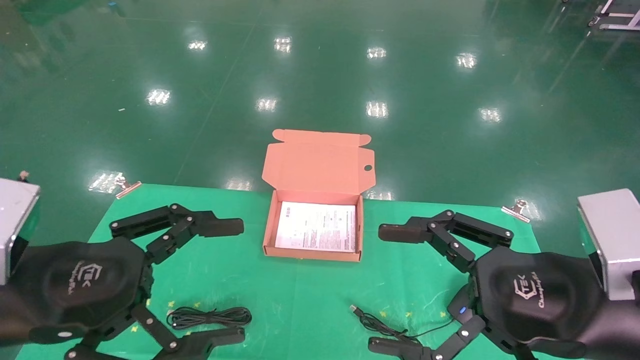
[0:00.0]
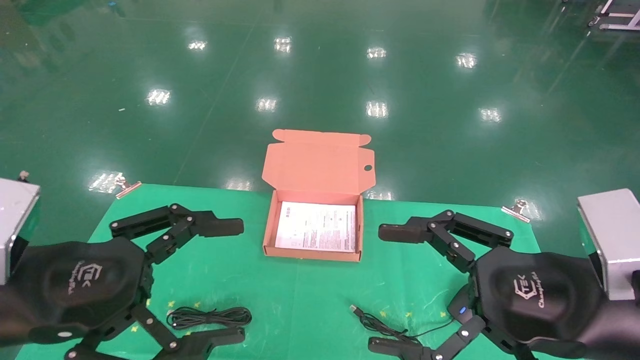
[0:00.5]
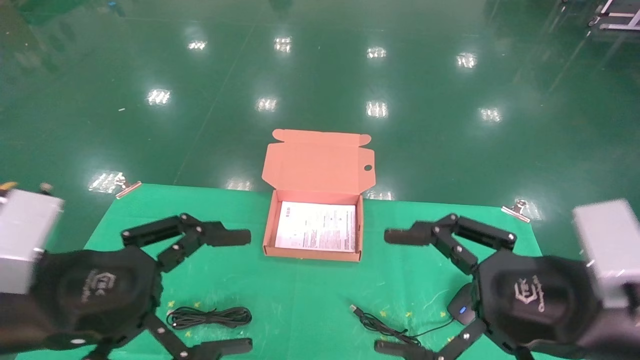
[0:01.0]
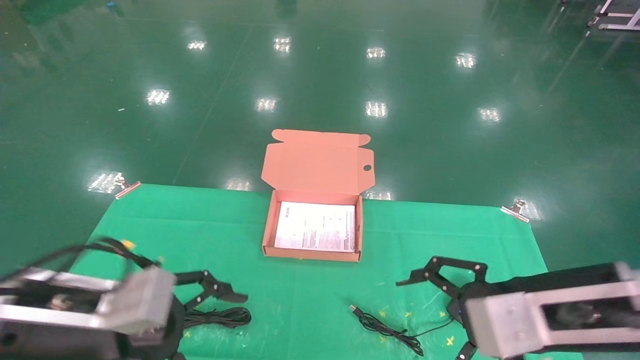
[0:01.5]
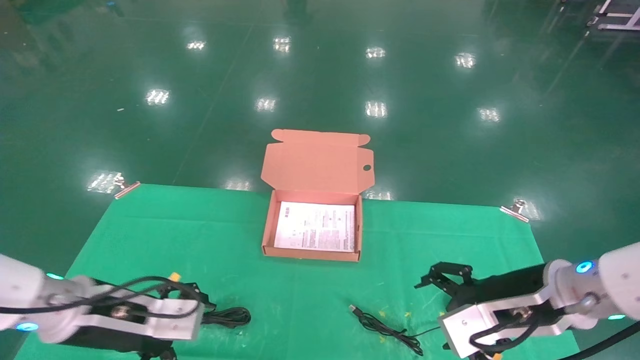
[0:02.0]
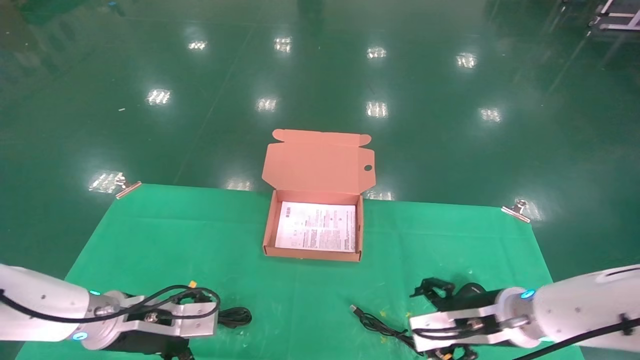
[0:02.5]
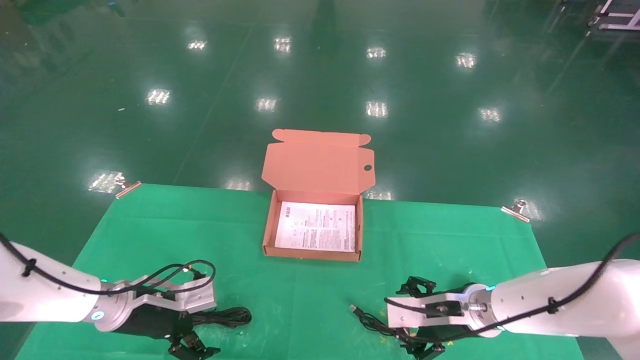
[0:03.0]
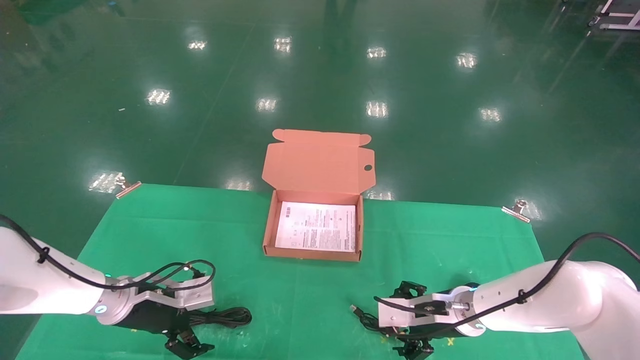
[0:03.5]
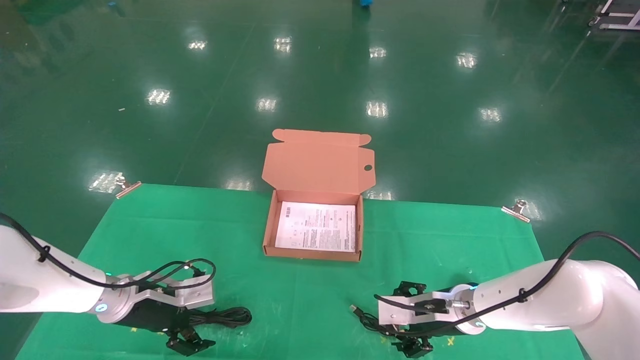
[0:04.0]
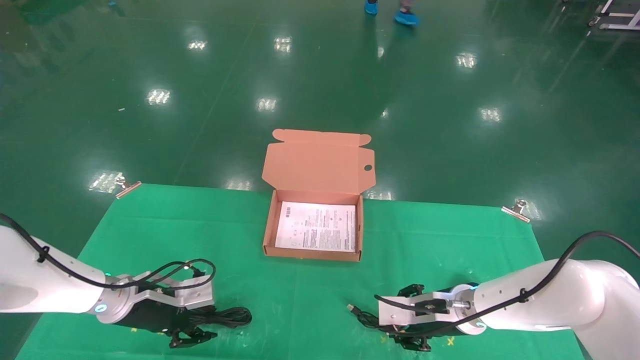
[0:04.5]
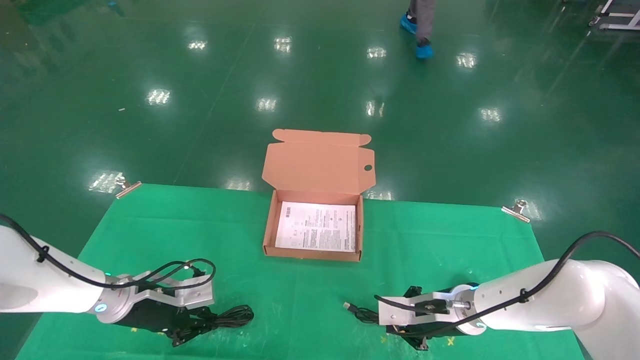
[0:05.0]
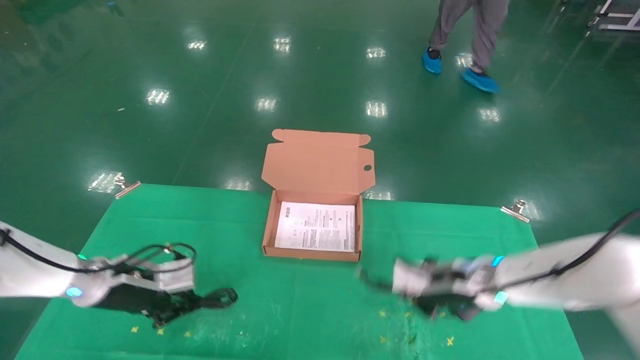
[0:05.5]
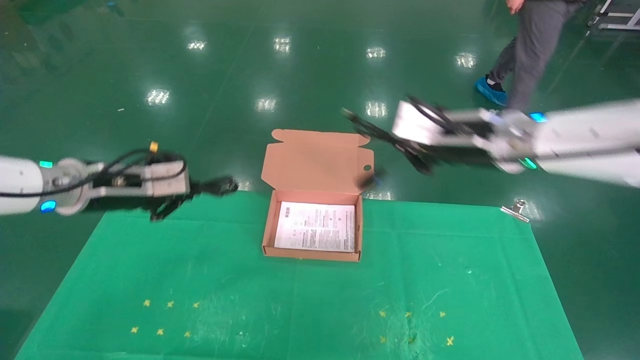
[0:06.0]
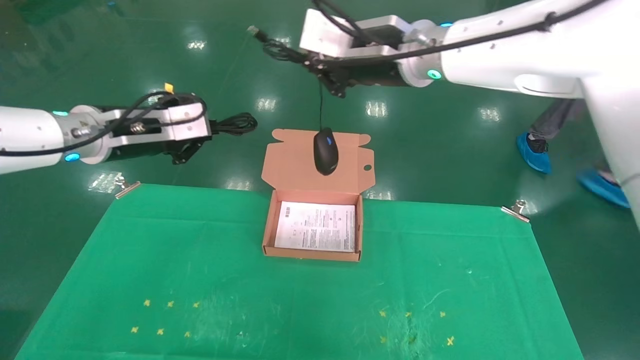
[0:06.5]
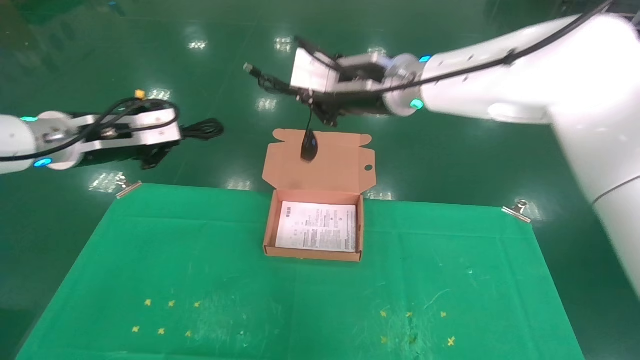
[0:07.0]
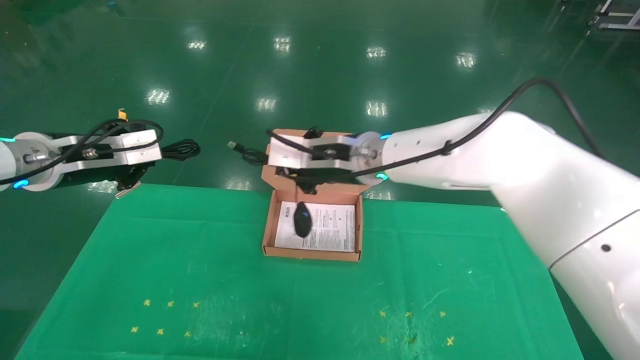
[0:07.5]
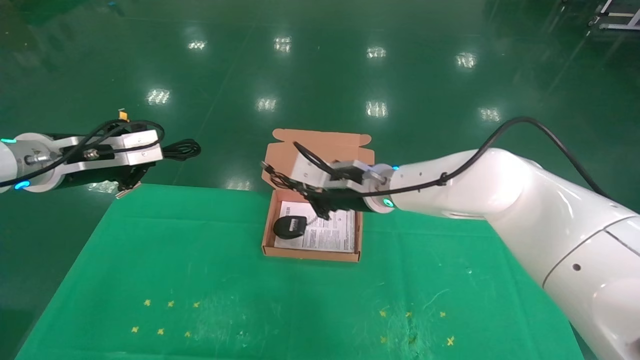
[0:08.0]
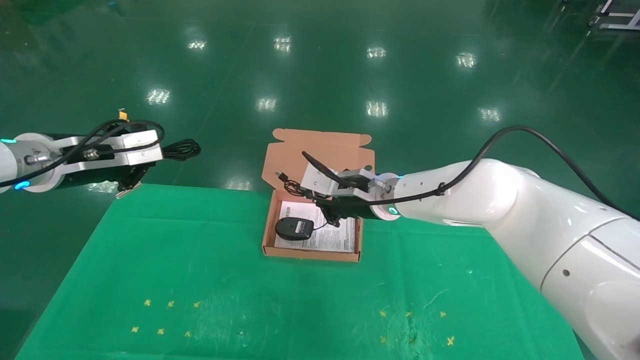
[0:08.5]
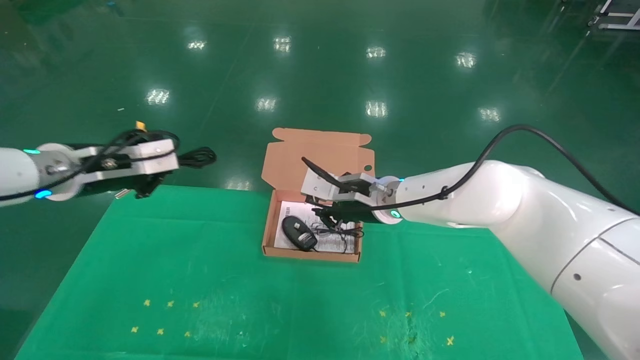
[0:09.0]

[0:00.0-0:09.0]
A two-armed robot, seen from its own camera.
Task of the whole recording: grasp data cable left put into box grasp mouse right put into box.
Step, 0:01.0 to 0:05.0: Grab and pick up both the mouse and power cord from the accessory packaging area at the same time.
0:00.0 to 0:02.0: The grippers both shift forward and downward by some 15 cm.
0:02.0 to 0:04.5: The left gripper is displaced forward and downward by approximately 15 cm, and closes its fingers, while the right gripper moves downward and forward, about 15 cm, and closes.
0:04.5 to 0:07.0: The right gripper moves upward and to the left, about 35 cm, and closes its fingers. Meanwhile the left gripper moves upward, about 25 cm, and closes its fingers.
0:07.0 to 0:09.0: The right gripper is displaced downward by about 15 cm.

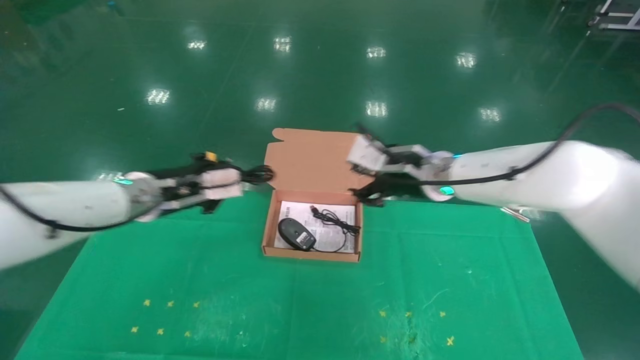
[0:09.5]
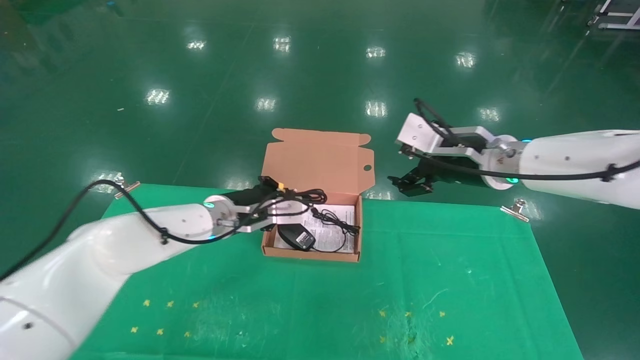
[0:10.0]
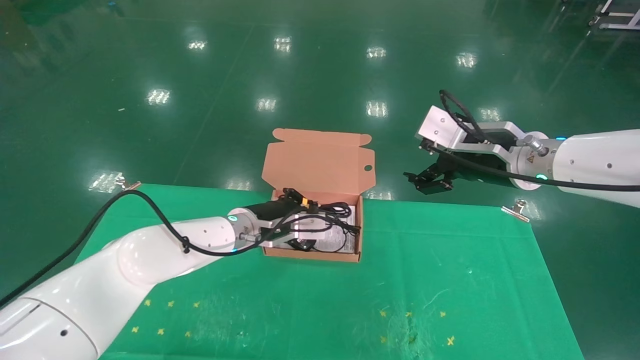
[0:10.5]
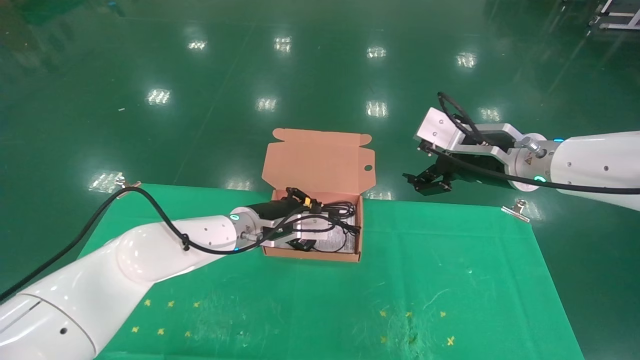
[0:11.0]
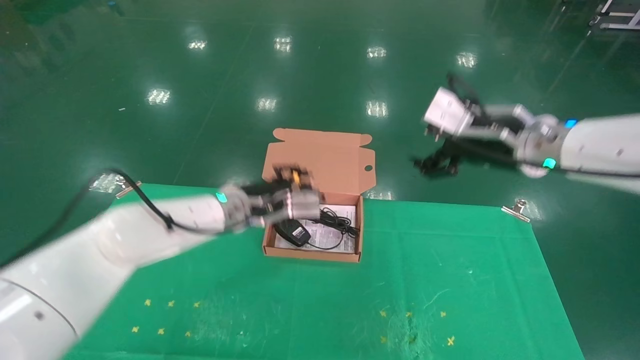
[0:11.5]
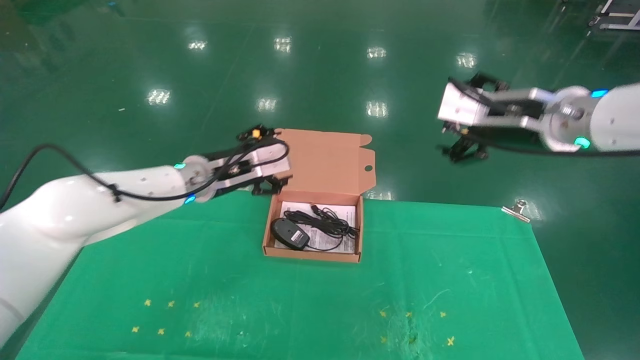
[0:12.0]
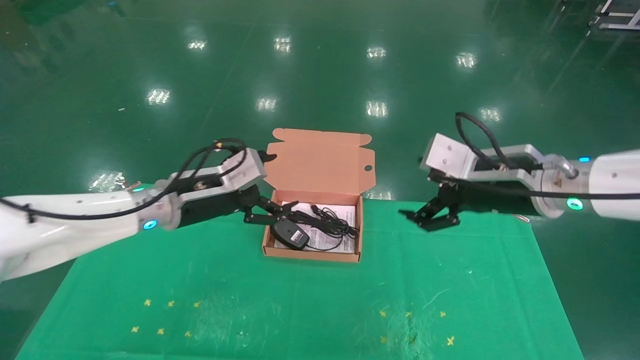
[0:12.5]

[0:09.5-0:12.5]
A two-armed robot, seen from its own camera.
Task of the whole recording: grasp data cable left put into box grasp mouse right put into box.
0:09.5 to 0:11.0: The right gripper goes some 10 cm to the right and backward, and opens up, while the left gripper goes some 15 cm to the right and downward.
0:11.0 to 0:12.5: The left gripper shifts approximately 15 cm to the left, upward and backward, and opens.

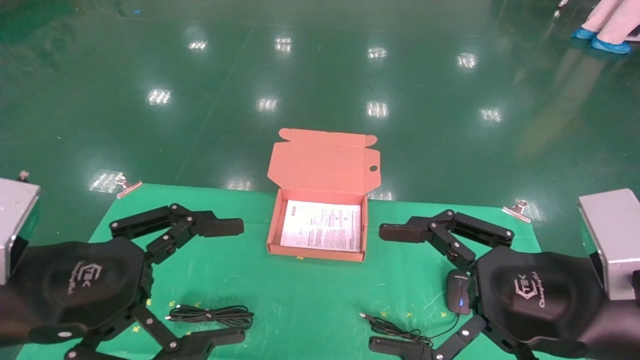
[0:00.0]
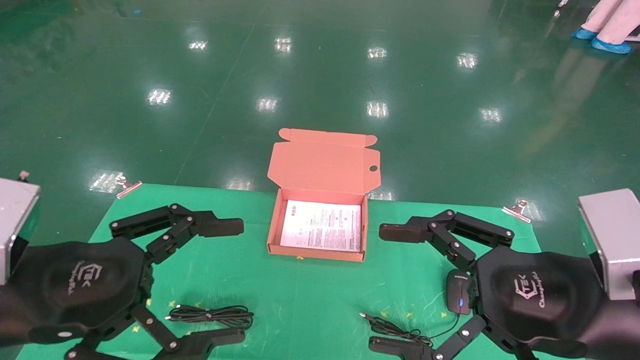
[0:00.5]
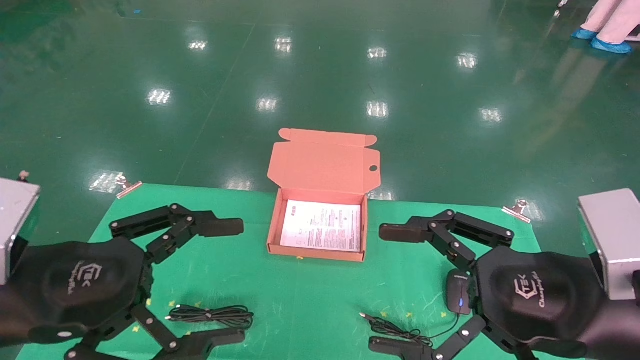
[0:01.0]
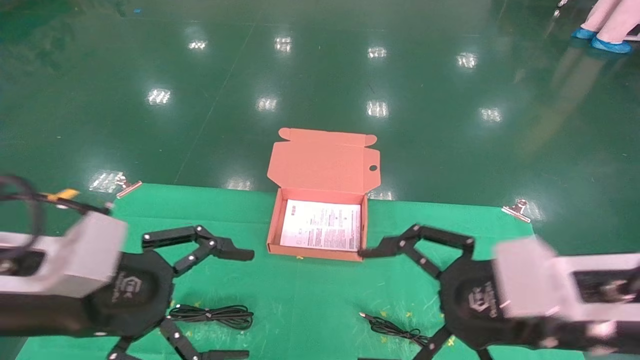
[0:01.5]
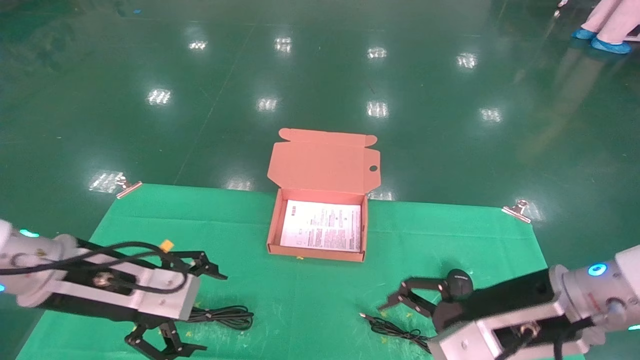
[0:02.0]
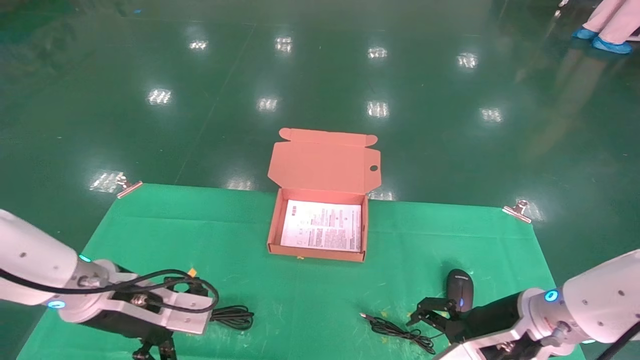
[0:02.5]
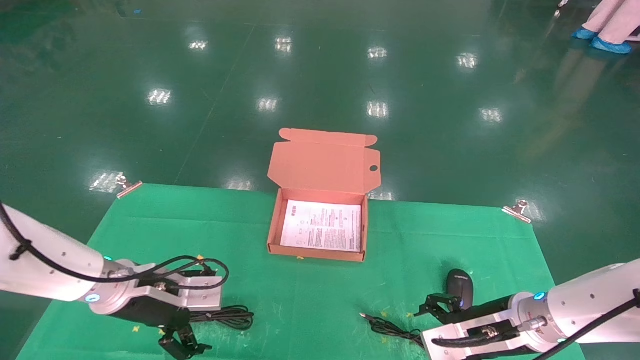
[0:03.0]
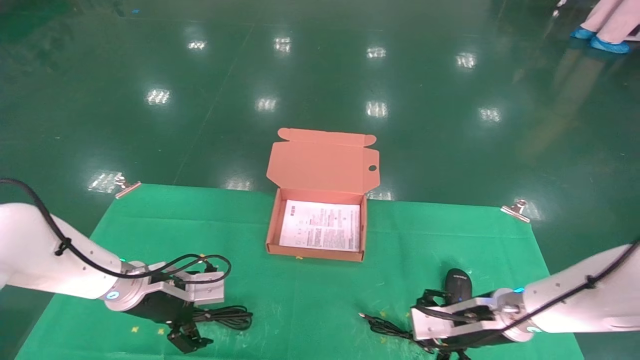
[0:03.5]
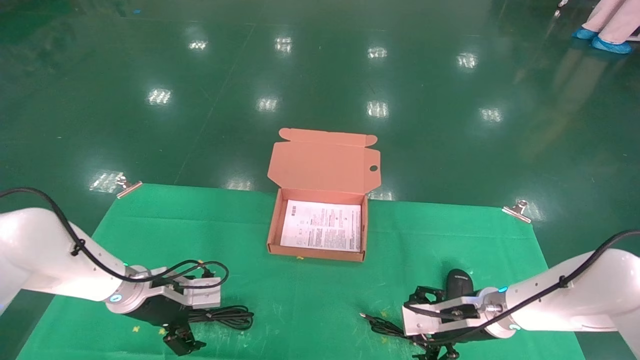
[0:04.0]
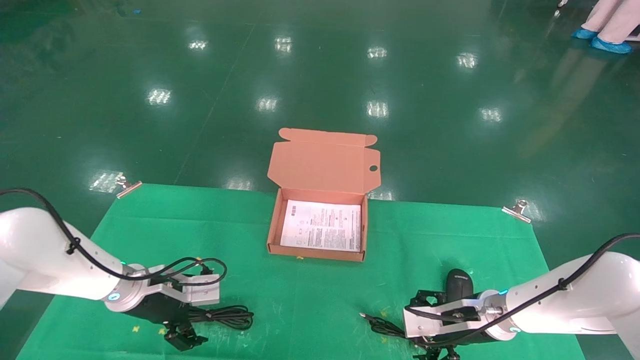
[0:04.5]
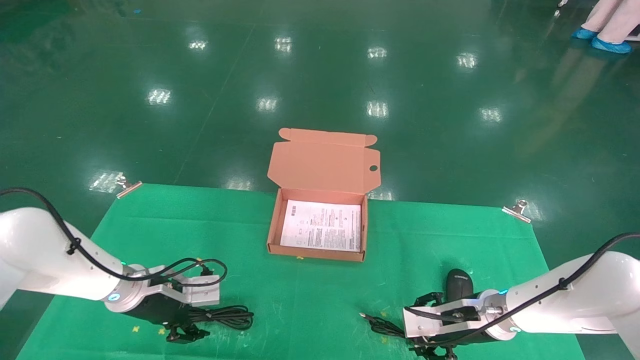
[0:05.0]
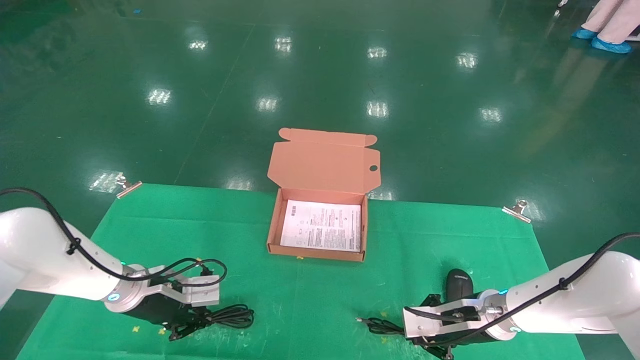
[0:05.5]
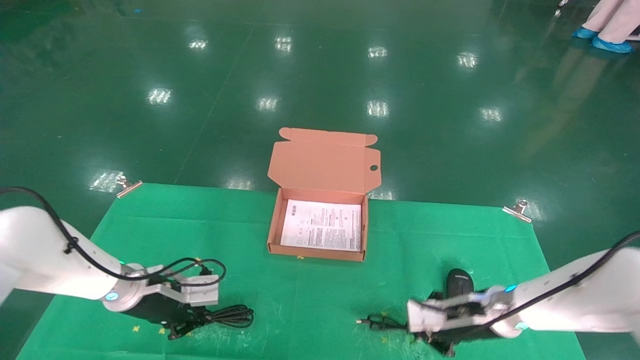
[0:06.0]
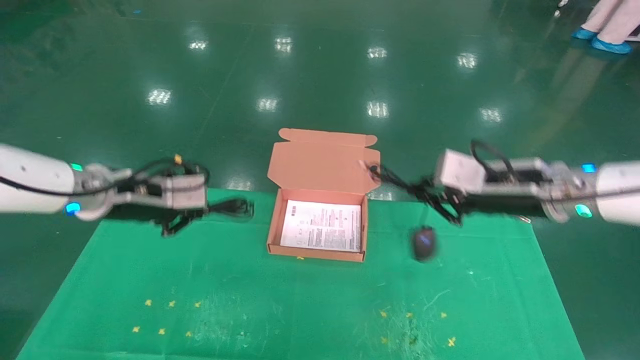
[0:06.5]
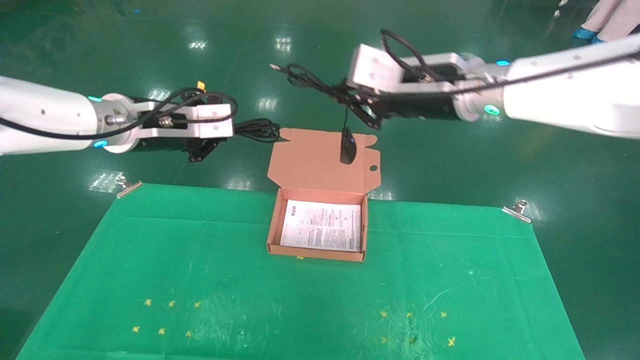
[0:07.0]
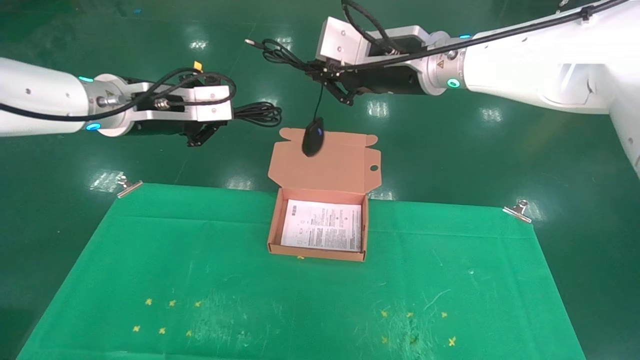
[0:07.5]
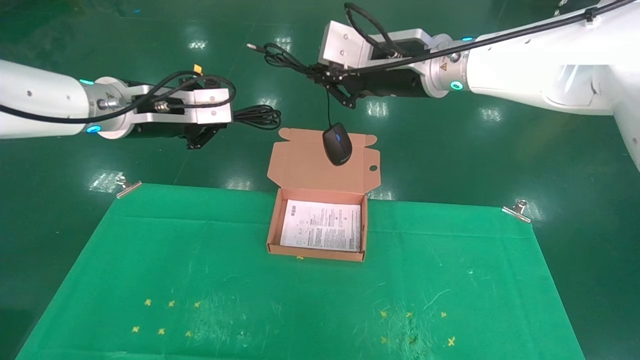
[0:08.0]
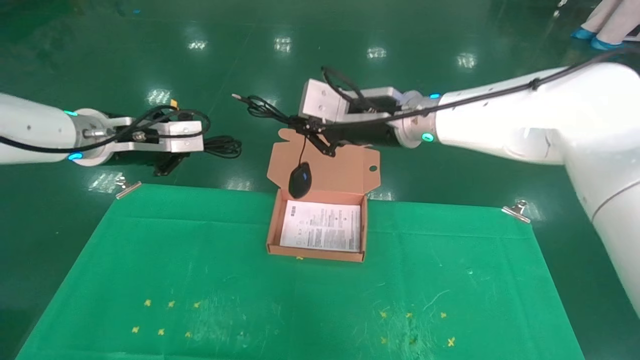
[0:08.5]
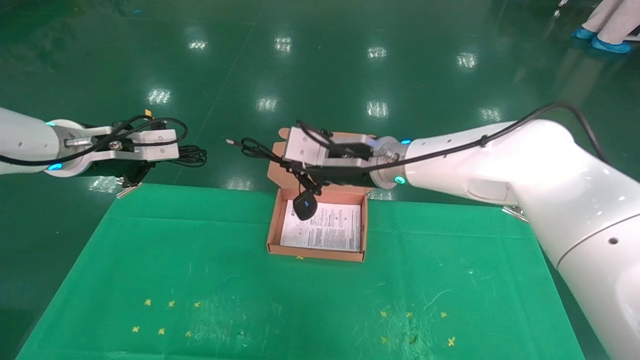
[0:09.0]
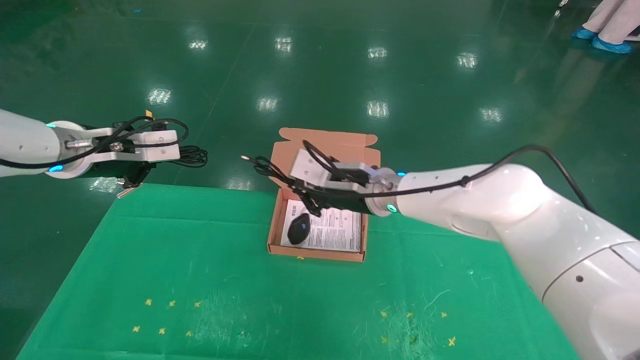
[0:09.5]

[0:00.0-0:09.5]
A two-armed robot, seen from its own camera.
Task of the whole recording: grasp data cable left put into box grasp mouse right put into box.
Step, 0:01.5 to 0:05.5: Grab and pick up both the mouse and power cord from the accessory packaging area at the same time.
0:00.0 to 0:02.0: Both grippers move forward, approximately 5 cm.
0:02.0 to 0:04.0: Both grippers move forward and downward, about 20 cm.
0:04.0 to 0:05.5: The left gripper closes its fingers, while the right gripper closes.
0:05.5 to 0:07.5: The two grippers go about 30 cm upward.
0:07.5 to 0:09.5: The right gripper is displaced downward by roughly 15 cm; the left gripper is displaced to the left and downward by roughly 10 cm.
